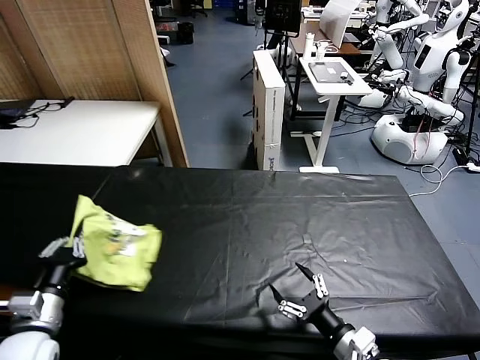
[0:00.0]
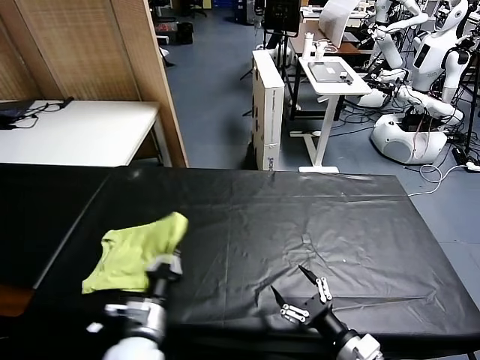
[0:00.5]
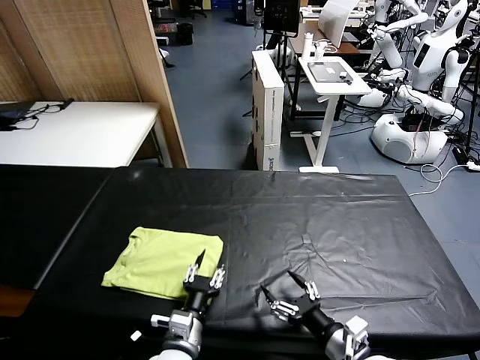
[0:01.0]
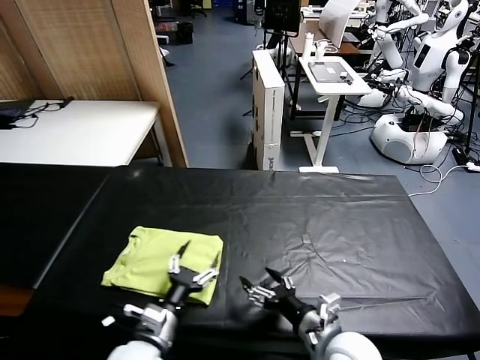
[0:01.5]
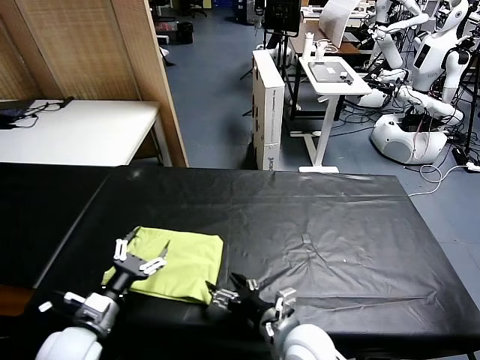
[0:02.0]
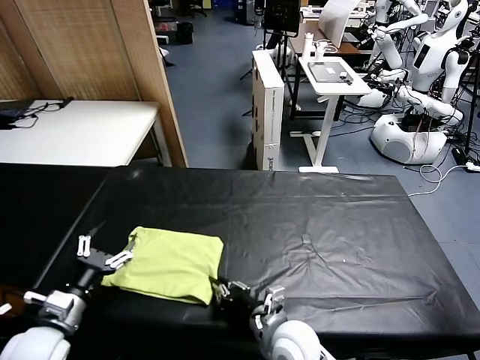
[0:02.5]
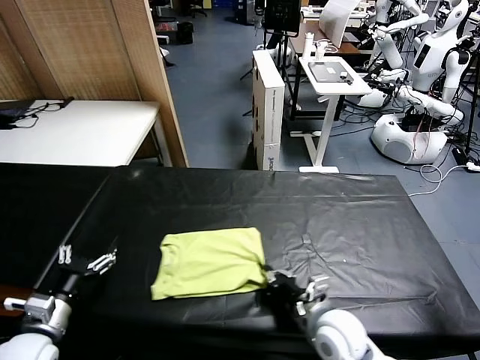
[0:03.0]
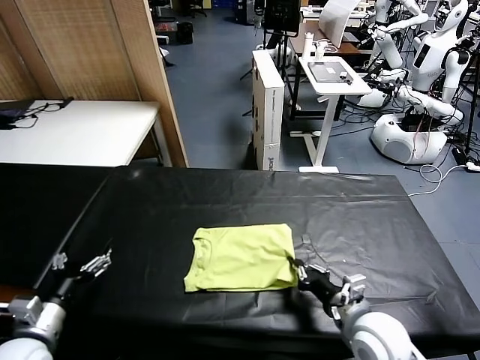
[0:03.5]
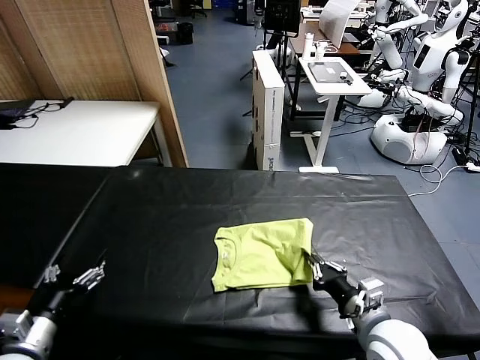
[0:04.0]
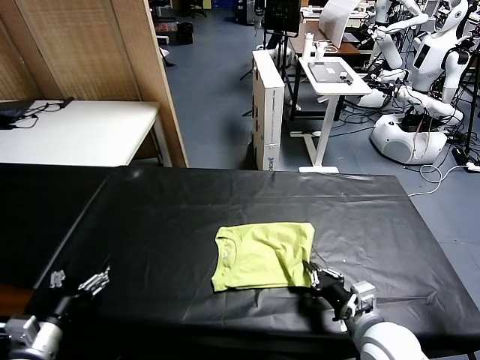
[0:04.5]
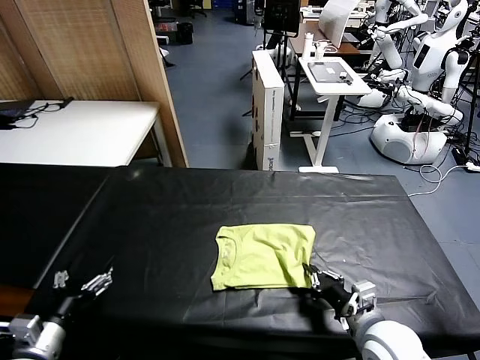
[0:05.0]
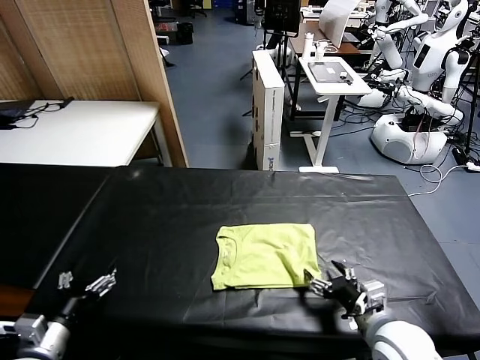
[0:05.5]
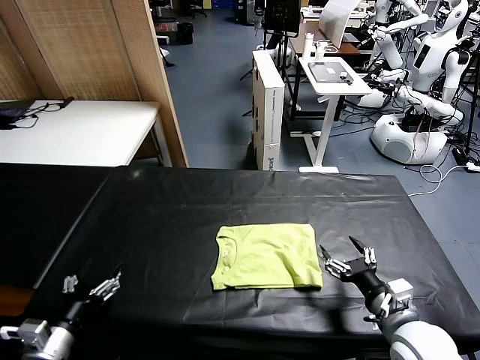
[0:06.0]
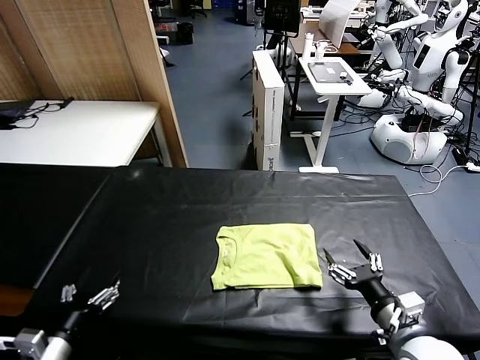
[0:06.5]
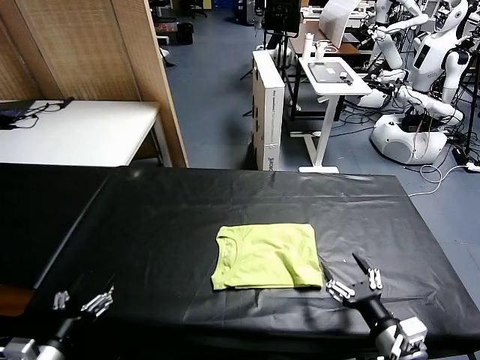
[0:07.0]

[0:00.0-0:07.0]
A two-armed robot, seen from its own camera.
Task of the whole recording: fold and organize the clothes.
Step, 0:01.5 to 0:05.5: Drag the clothes to the center of the table.
0:00.0 to 0:02.0: The right gripper shifts approximately 15 cm to the left and forward; the left gripper goes to the right and returns, about 25 cm each way, and opens its fingers.
0:02.0 to 0:03.5: The right gripper heads to the right, covering about 15 cm, and closes. The left gripper heads to the left, covering approximately 5 cm.
0:03.5 to 0:05.0: The grippers move only a little.
0:05.0 to 0:07.0: The right gripper travels backward by roughly 5 cm, and opens.

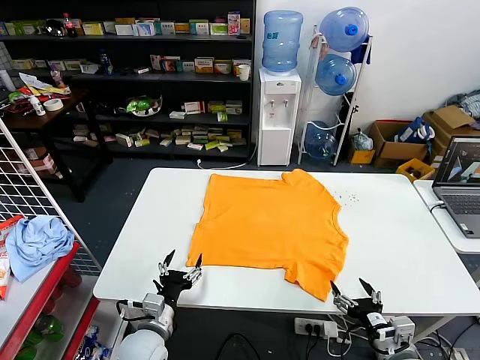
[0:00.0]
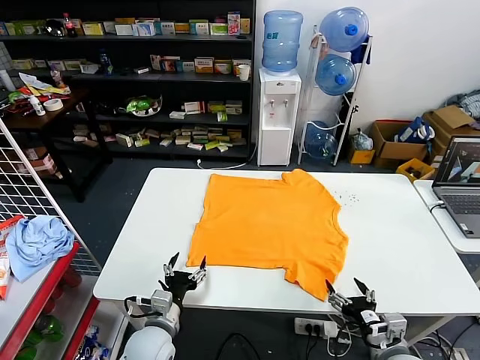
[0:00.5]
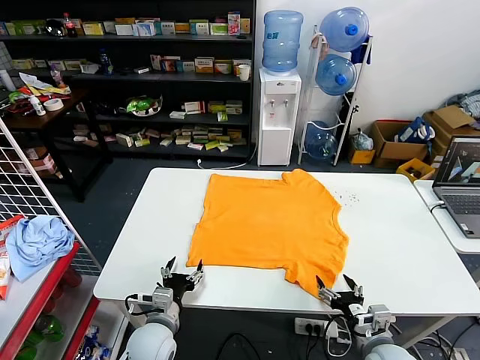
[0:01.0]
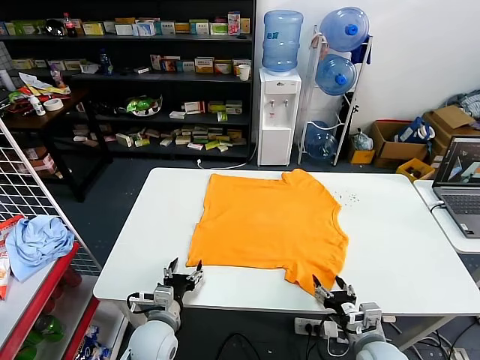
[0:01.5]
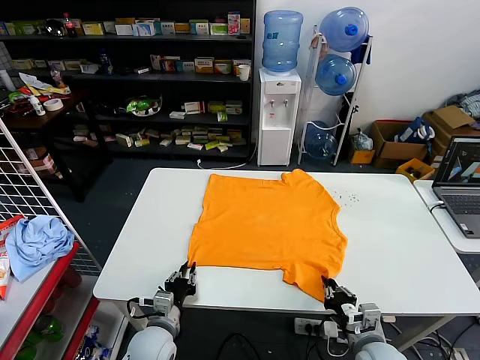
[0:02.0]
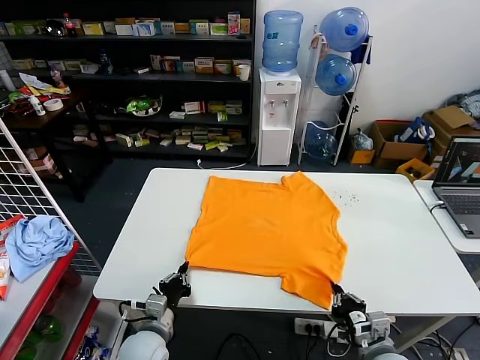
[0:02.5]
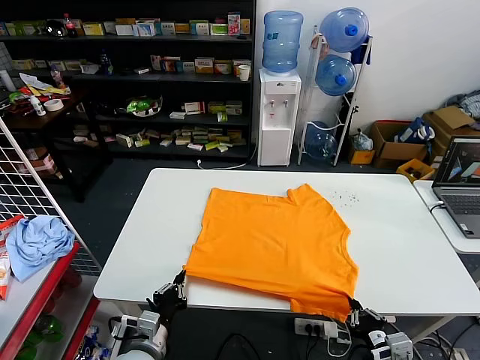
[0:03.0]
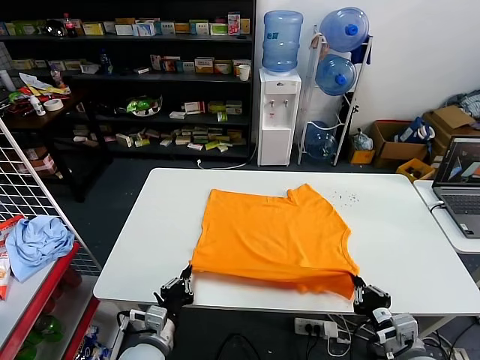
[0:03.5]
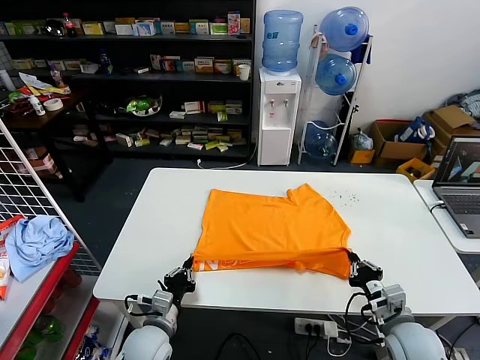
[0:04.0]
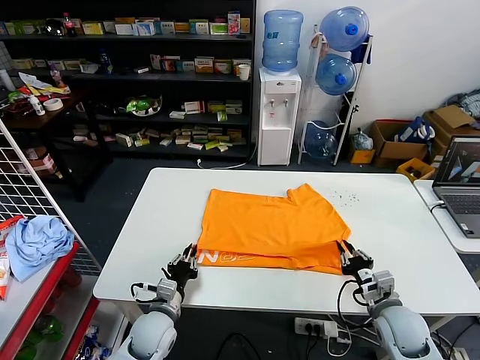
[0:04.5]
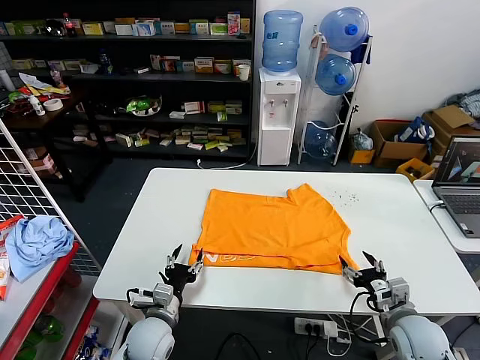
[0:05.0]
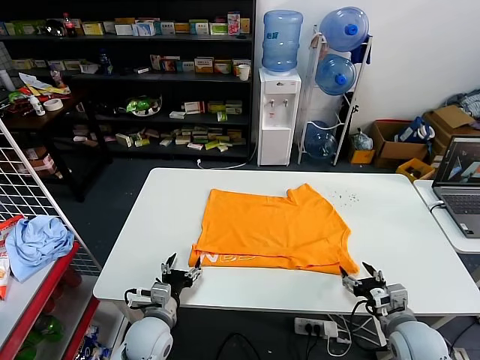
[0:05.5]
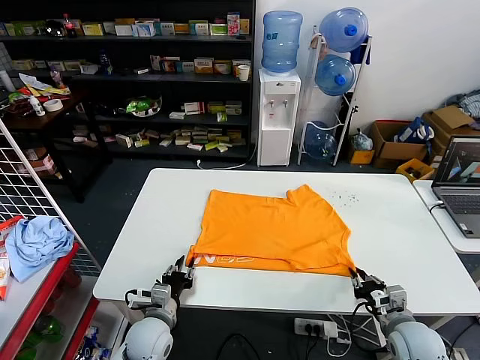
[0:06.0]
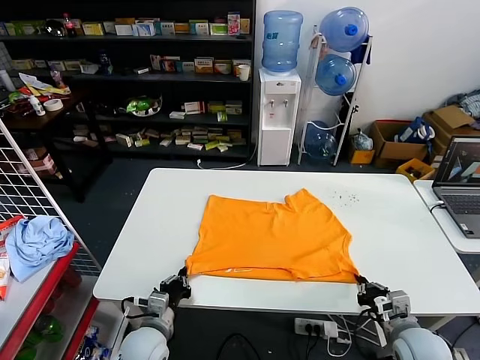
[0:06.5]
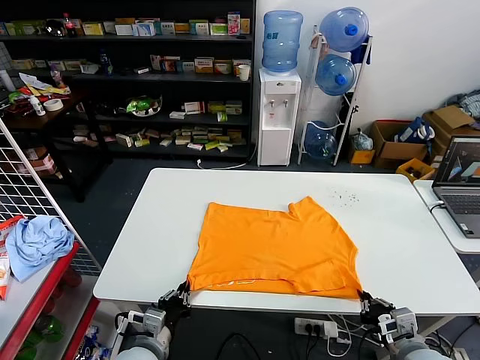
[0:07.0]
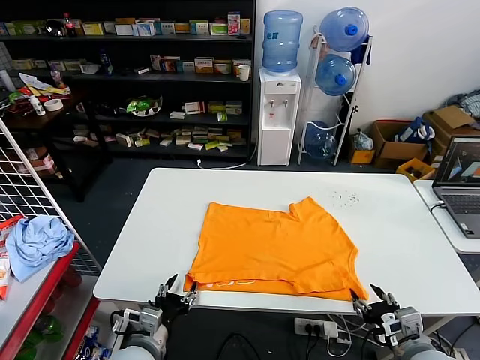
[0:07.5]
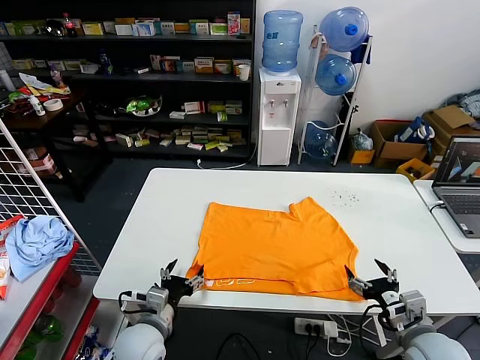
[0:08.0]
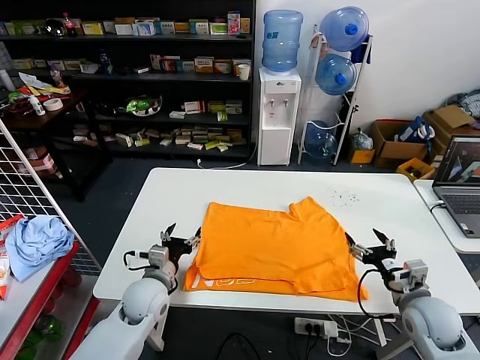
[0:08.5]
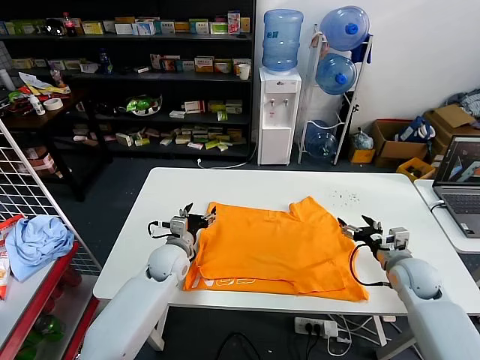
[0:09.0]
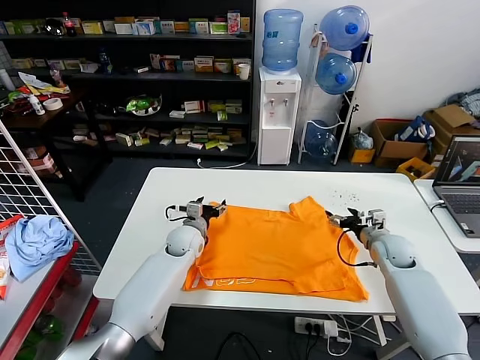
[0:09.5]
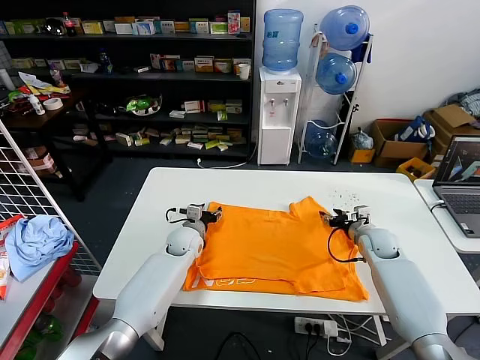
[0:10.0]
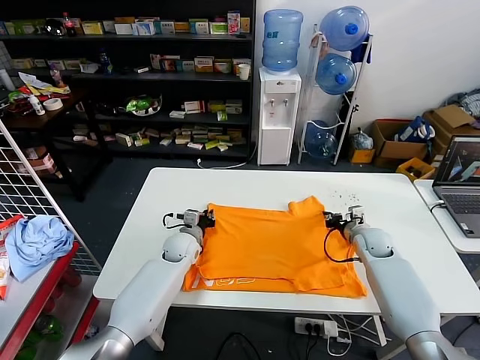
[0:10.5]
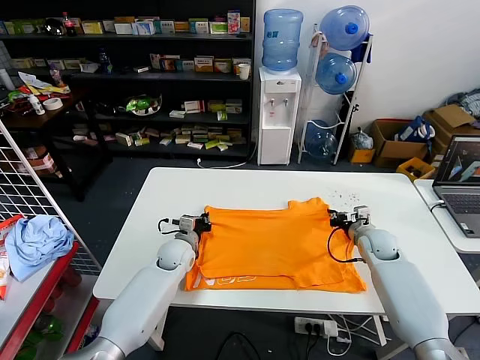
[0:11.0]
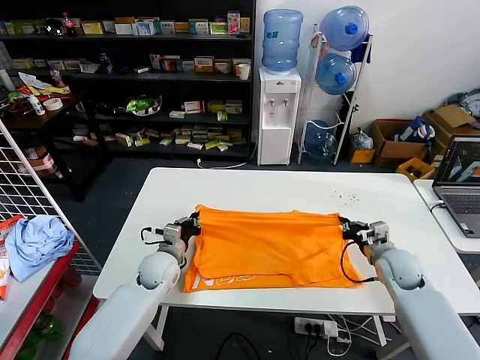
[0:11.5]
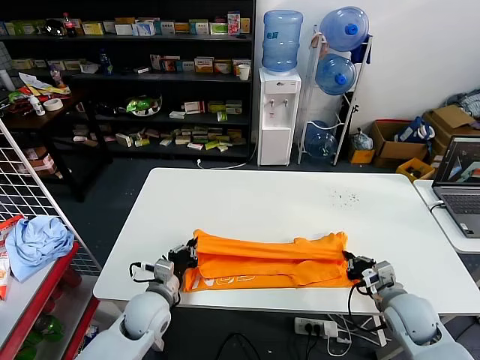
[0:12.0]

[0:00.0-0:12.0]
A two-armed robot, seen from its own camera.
Task of the whole recording: fold and organize the clothes.
Step, 0:00.0 to 0:02.0: use both grippers simultaneously to clamp the lower edge of the clothing fabric.
Step, 0:02.5 to 0:04.5: use both grippers to drag the lower edge of the fabric forward and fold it over the upper edge.
Step, 0:05.0 to 0:07.5: Drag the clothes downward with both gripper.
Step, 0:08.0 to 0:10.5: use both grippers simultaneously to clamp the upper edge of the clothing fabric.
0:02.0 to 0:04.0: The right gripper travels to the right by approximately 5 cm, and reaches about 10 cm backward, then returns.
0:04.0 to 0:06.0: The left gripper opens; the right gripper opens and closes again.
0:06.0 to 0:08.0: Both grippers move upward, approximately 5 cm. The right gripper opens its fingers; the left gripper opens its fingers.
0:08.0 to 0:10.0: Both grippers move forward, roughly 25 cm. The right gripper closes.
0:10.0 to 0:12.0: The two grippers go about 20 cm backward. The left gripper closes its fingers. Meanwhile the right gripper closes up.

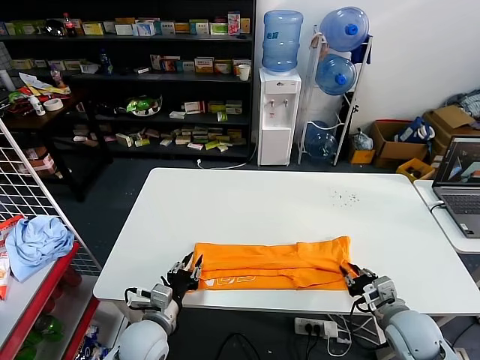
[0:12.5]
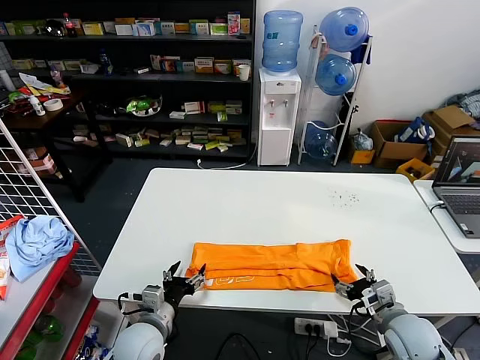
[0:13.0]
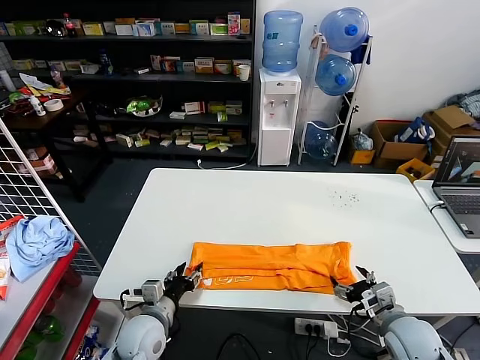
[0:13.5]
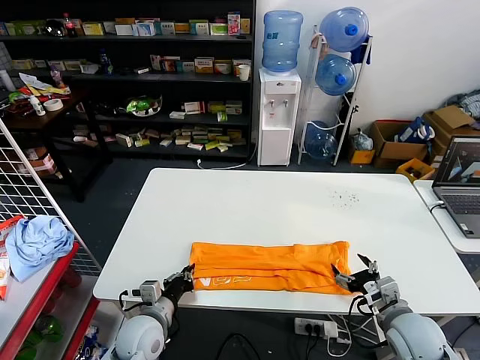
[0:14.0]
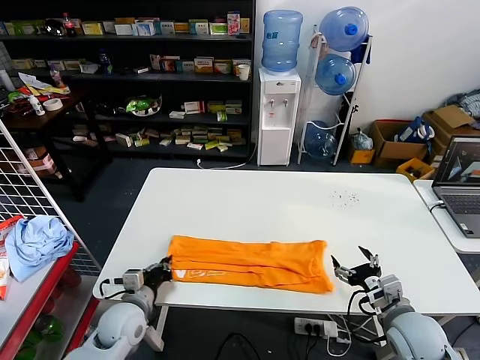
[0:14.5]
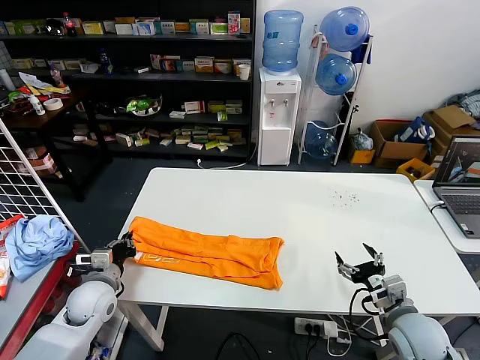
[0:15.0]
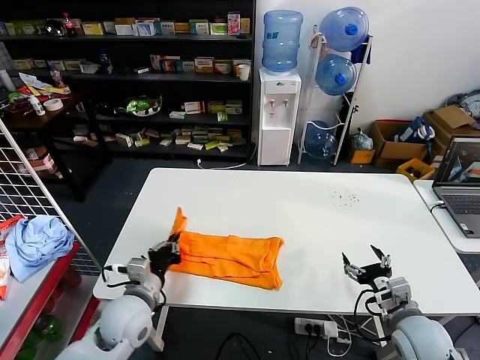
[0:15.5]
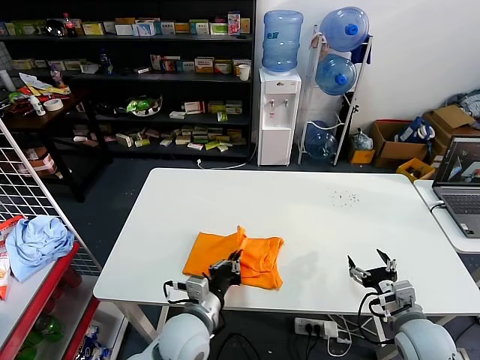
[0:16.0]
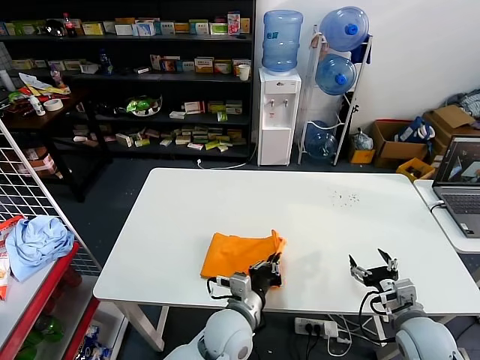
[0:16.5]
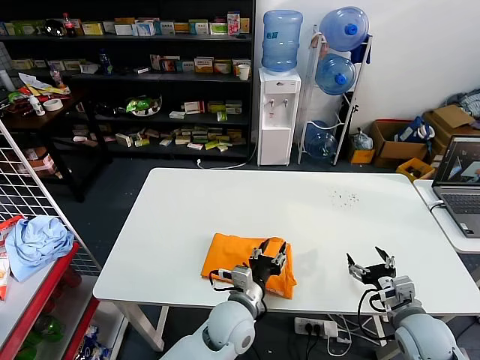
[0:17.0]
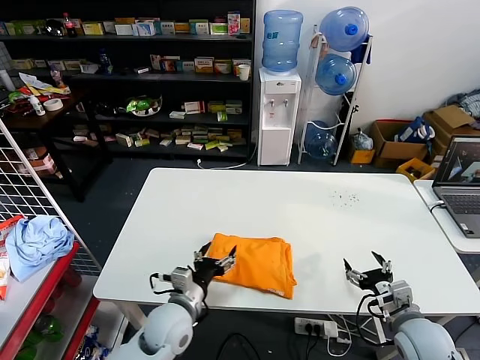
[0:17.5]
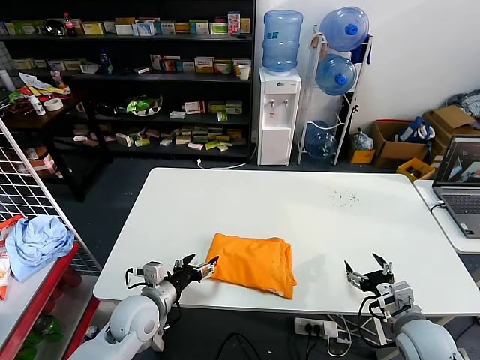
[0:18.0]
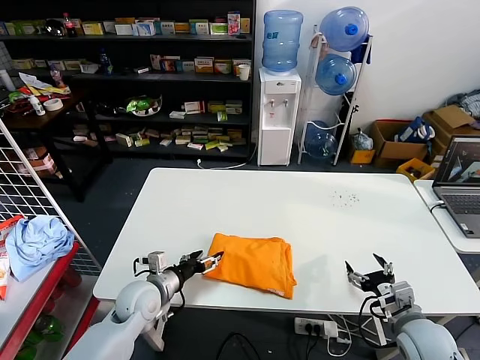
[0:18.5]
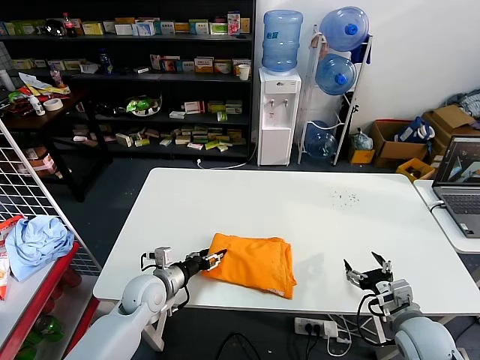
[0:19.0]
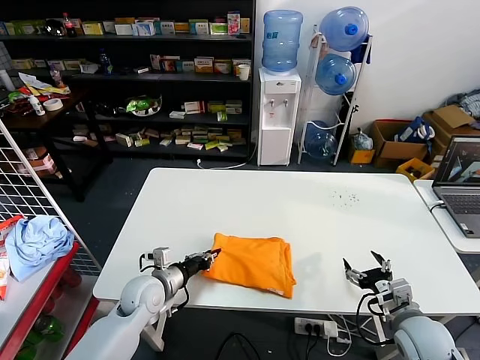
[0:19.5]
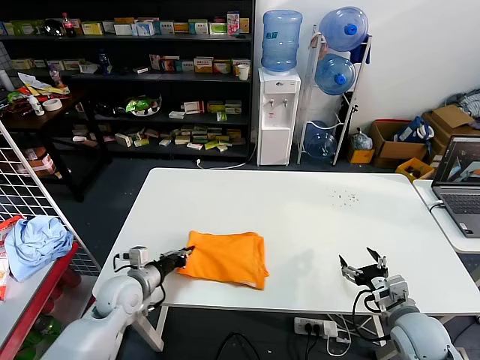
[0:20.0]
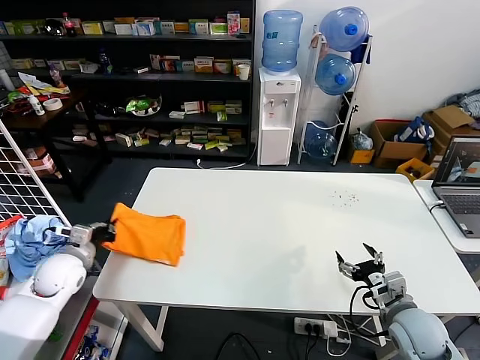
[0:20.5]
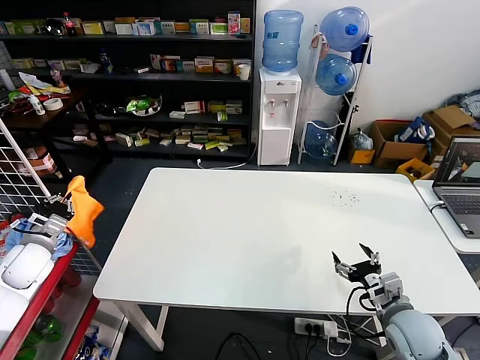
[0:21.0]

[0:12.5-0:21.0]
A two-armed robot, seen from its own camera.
Task of the whole recording: fold and organize the clothes.
Step, 0:13.5 to 0:14.0: use the left gripper to clamp the left edge of the fabric.
Step, 0:14.5 to 0:17.0: use the left gripper to drag the left edge of the fabric to the left and folds it over the right edge.
0:12.5 to 0:14.5: The right gripper opens, while the left gripper shifts about 5 cm to the left, and opens, then closes once more.
0:14.5 to 0:16.5: The left gripper heads to the right, covering roughly 25 cm.
0:16.5 to 0:19.0: The left gripper moves to the left and forward, some 20 cm, and opens.
0:19.0 to 0:21.0: The left gripper shifts about 25 cm to the left, and closes.
